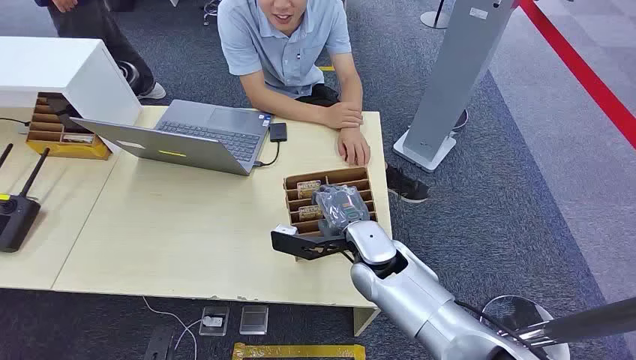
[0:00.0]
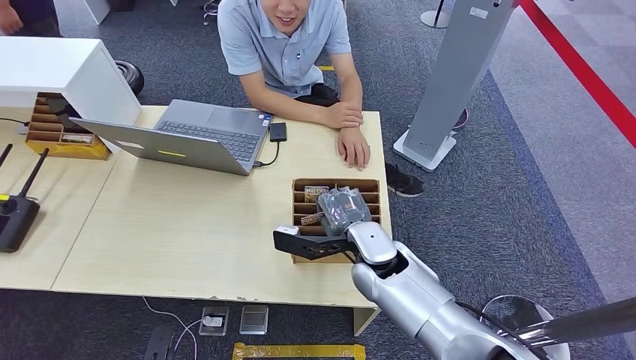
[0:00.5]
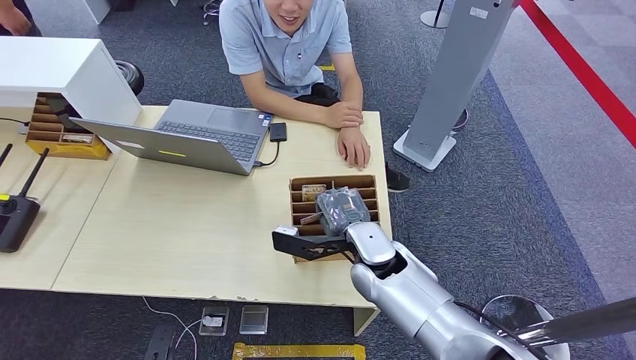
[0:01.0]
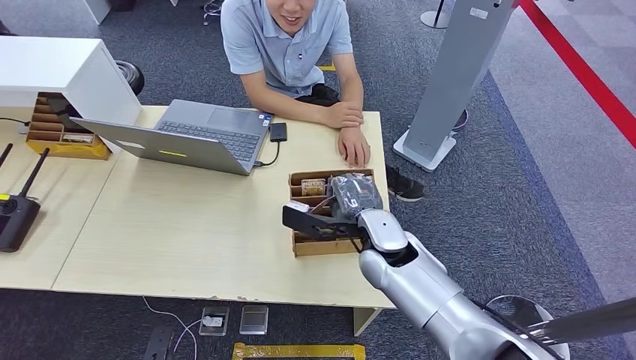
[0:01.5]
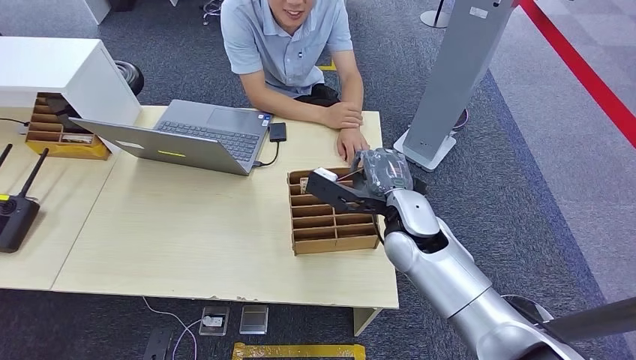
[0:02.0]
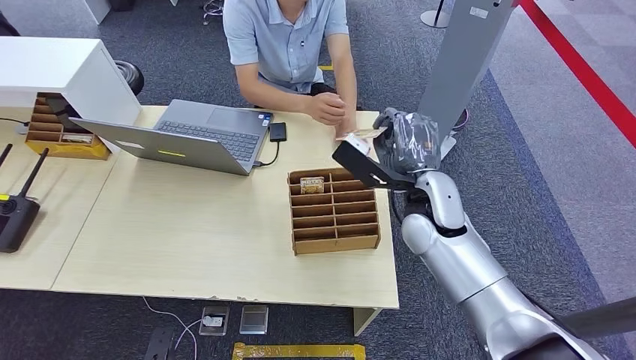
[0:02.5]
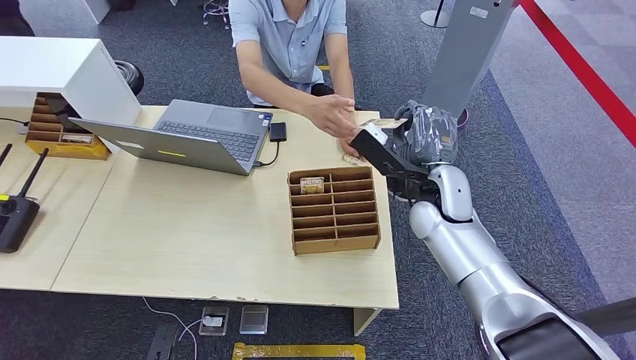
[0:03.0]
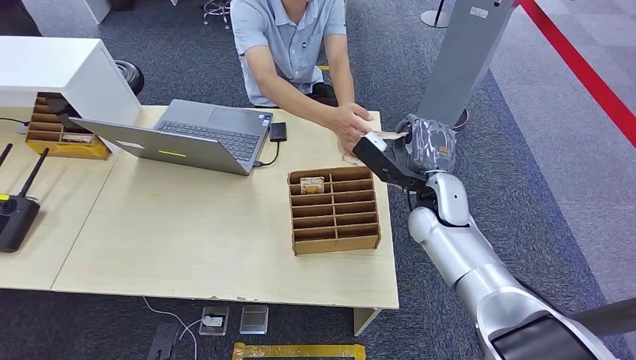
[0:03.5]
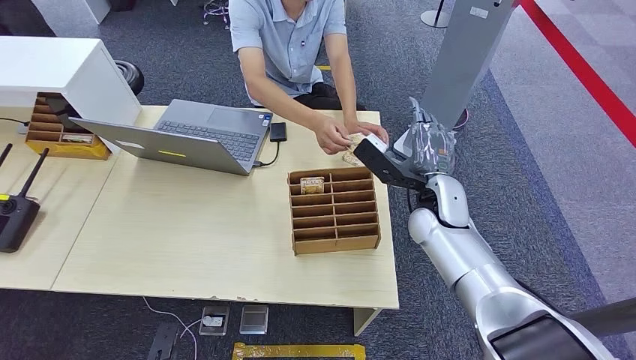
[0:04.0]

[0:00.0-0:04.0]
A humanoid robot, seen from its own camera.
Step, 0:00.0 to 0:01.5: Pick up the key card from the card box.
Step, 0:03.0 to 0:04.0: Hand the key card to the target.
0:02.0 to 0:04.0: The right hand heads to the right and forward, covering some 10 cm.
